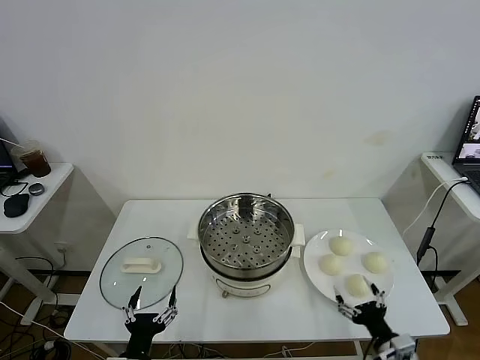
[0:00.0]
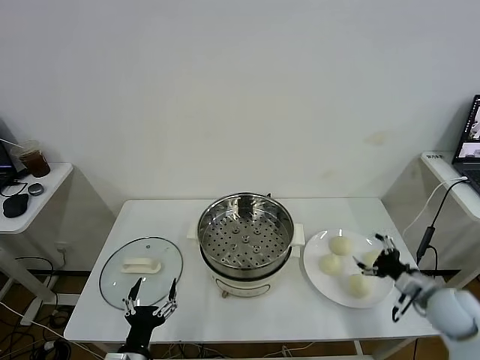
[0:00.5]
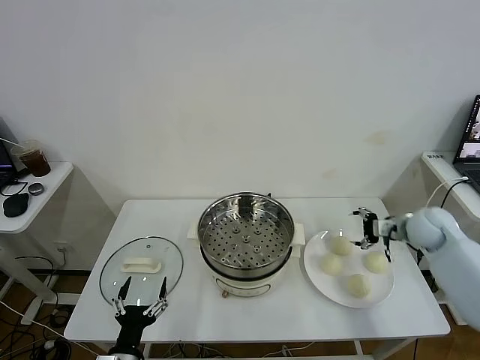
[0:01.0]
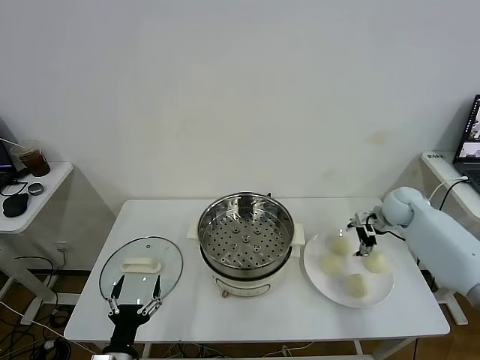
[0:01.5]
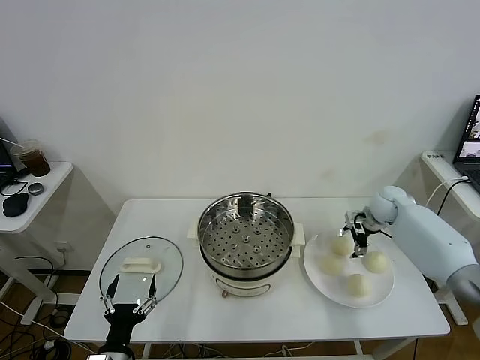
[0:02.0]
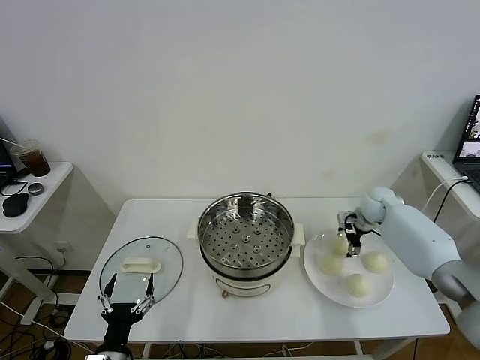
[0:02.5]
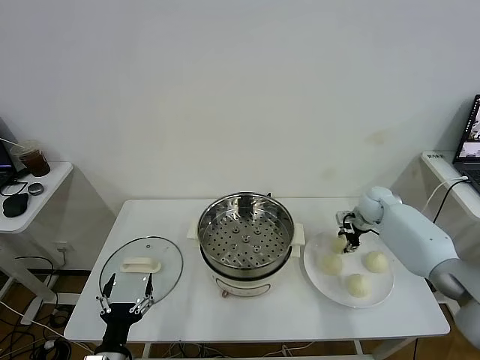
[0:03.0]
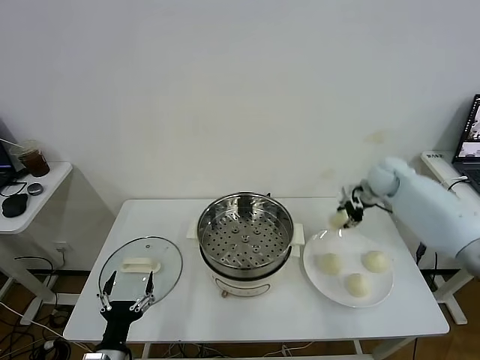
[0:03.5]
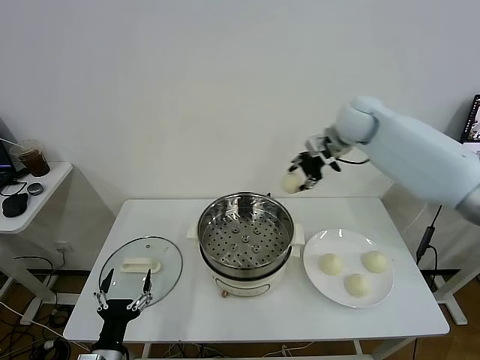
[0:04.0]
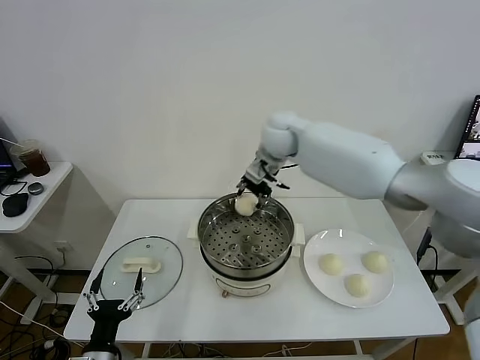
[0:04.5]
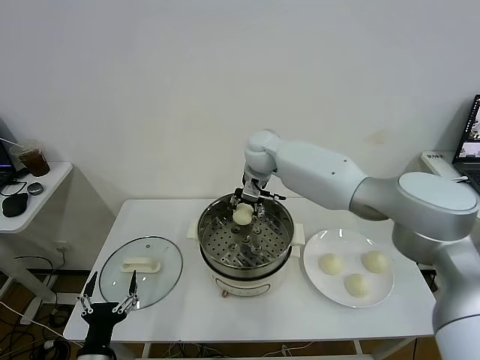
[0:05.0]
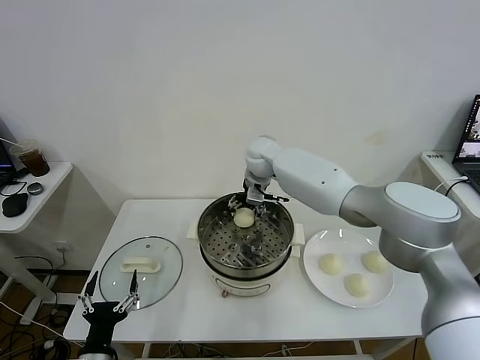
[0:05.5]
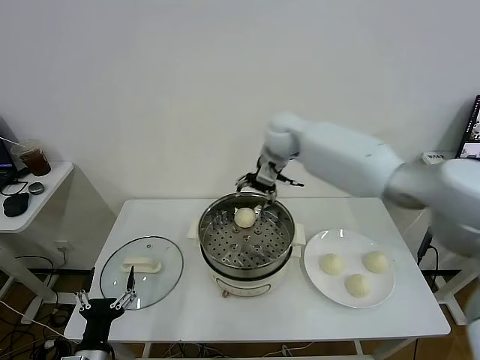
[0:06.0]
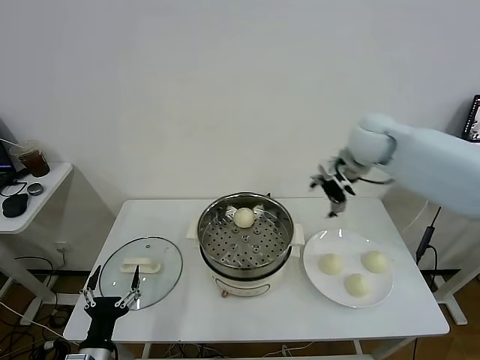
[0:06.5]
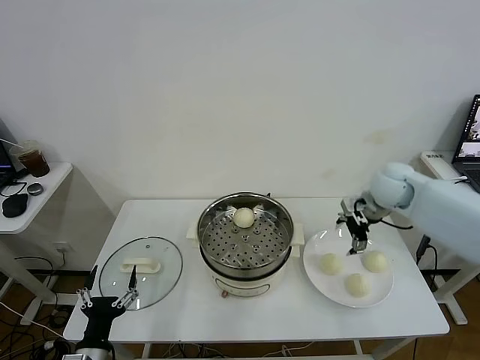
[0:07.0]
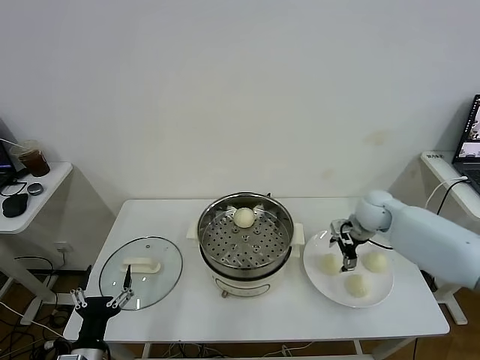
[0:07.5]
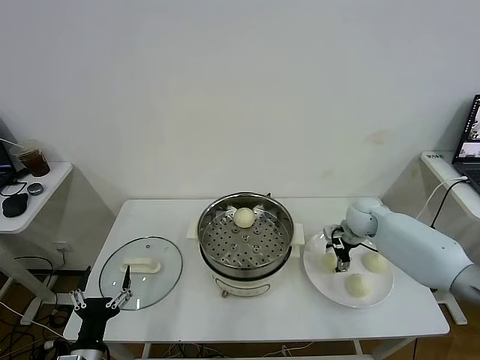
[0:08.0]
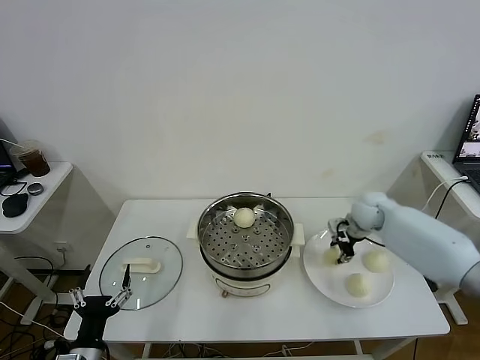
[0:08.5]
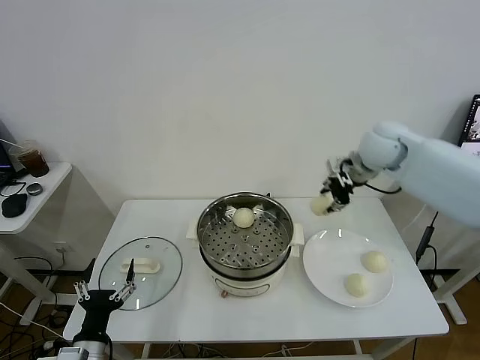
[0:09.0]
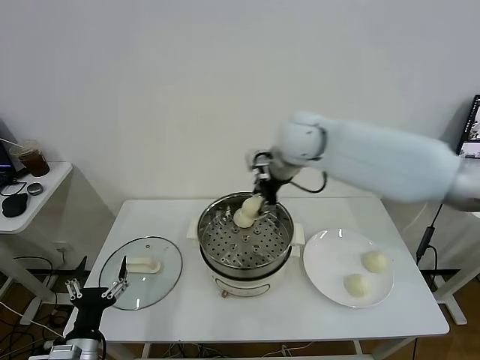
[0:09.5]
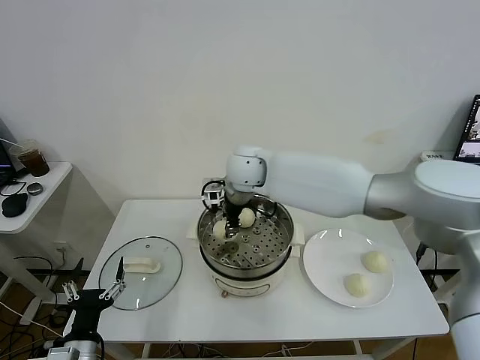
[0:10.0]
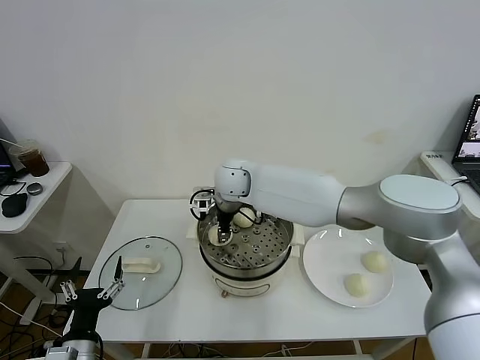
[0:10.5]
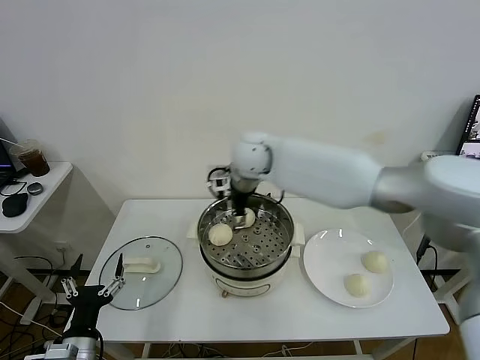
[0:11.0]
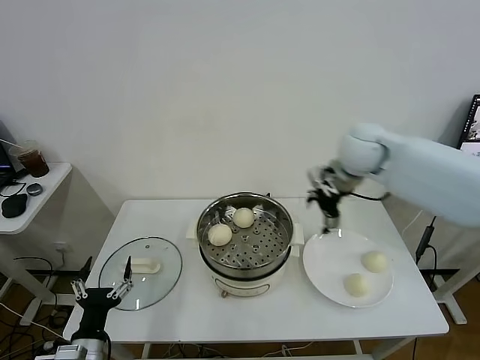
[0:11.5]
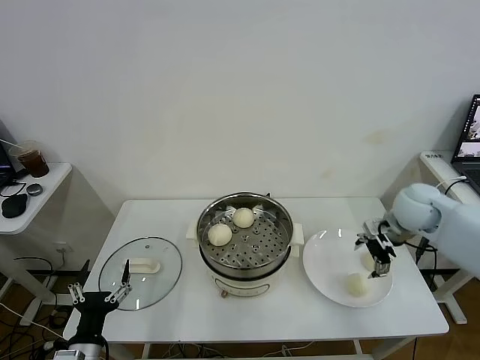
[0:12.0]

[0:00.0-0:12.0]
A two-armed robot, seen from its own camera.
Task of the whole recording: take steamed baozi put them in steamer.
Step, 0:00.0 to 0:02.5: Grasp the baozi in the plate with right gripper.
Step, 0:03.0 to 0:05.5: Place the baozi on the steamer with right gripper.
Step, 0:06.0 to 0:08.0: Grasp the baozi in the plate with right gripper.
Step, 0:08.5 to 0:10.5: Place the baozi on the steamer with right gripper.
0:02.0 to 0:04.0: The right gripper heads upward and to the left, covering about 30 cm, and closes its fingers.
0:04.0 to 0:06.0: The right gripper travels to the left by some 5 cm, and opens up.
0:06.0 to 0:08.0: The right gripper is displaced downward and to the right by roughly 30 cm, and closes up.
0:08.0 to 0:10.0: The right gripper travels to the left and upward by approximately 35 cm.
0:10.0 to 0:12.0: The right gripper moves to the right, roughly 40 cm, and opens.

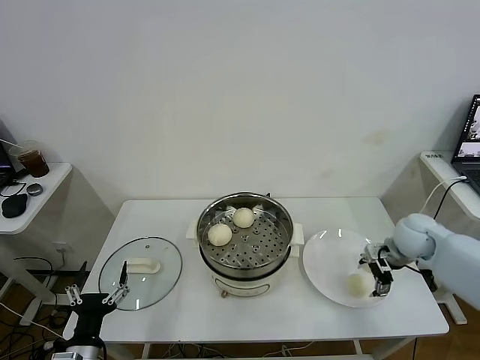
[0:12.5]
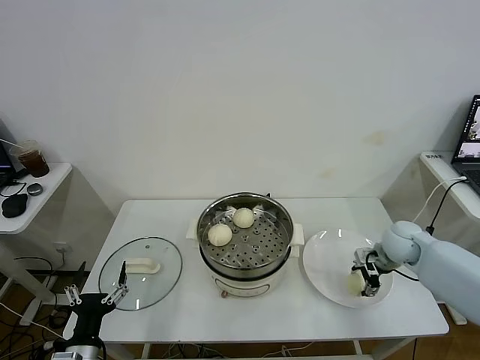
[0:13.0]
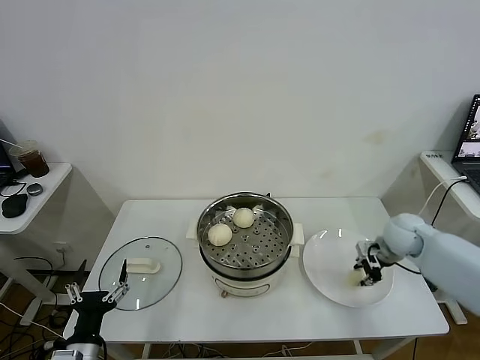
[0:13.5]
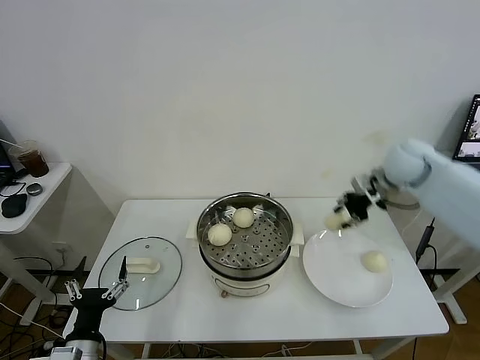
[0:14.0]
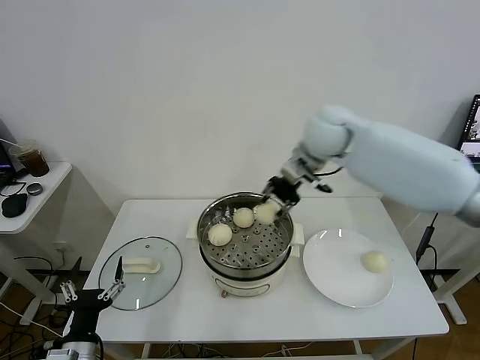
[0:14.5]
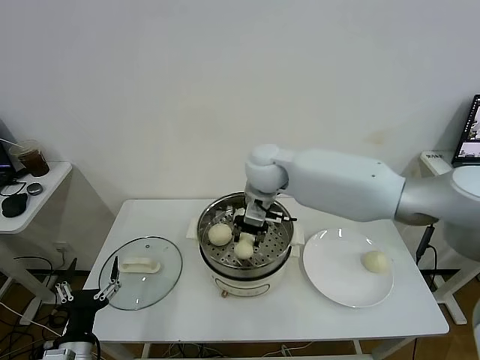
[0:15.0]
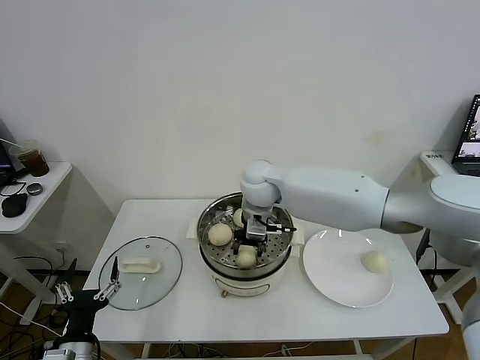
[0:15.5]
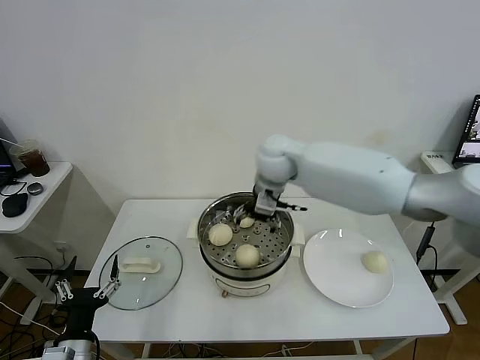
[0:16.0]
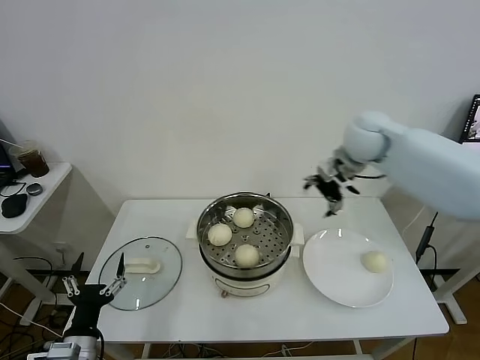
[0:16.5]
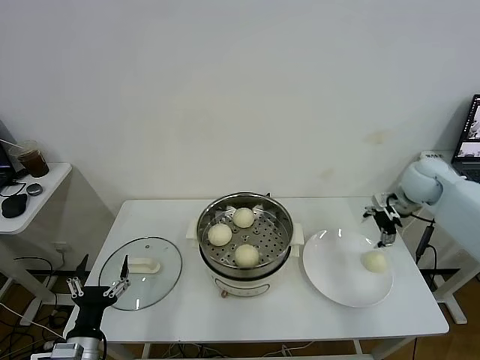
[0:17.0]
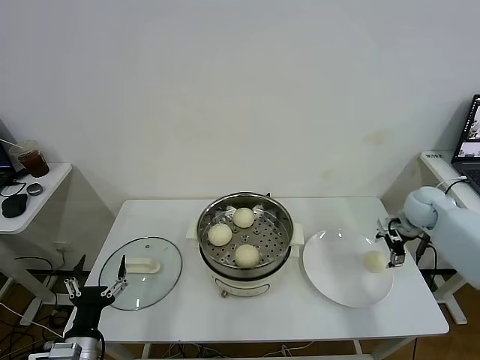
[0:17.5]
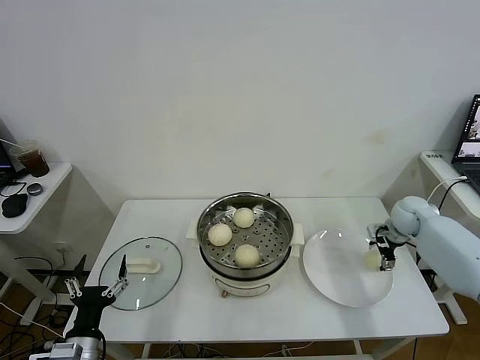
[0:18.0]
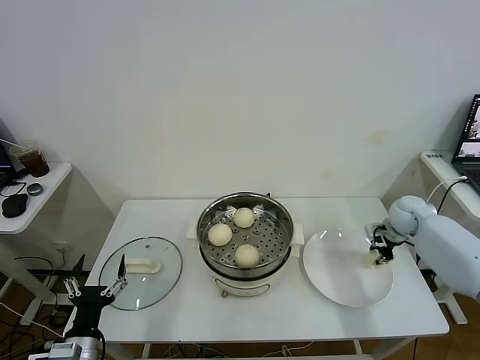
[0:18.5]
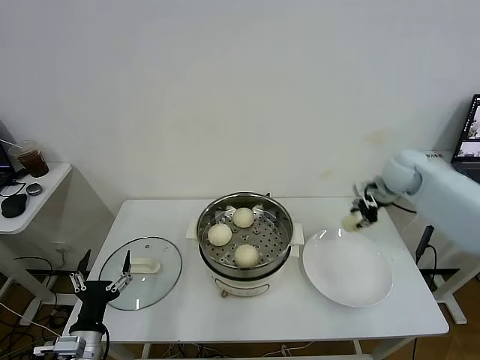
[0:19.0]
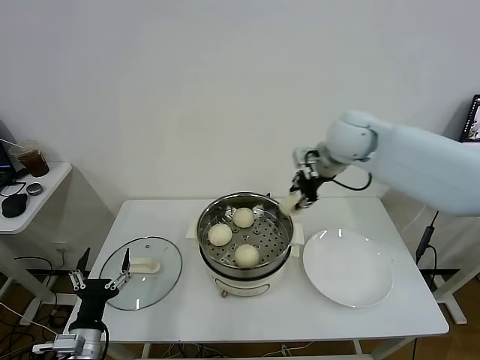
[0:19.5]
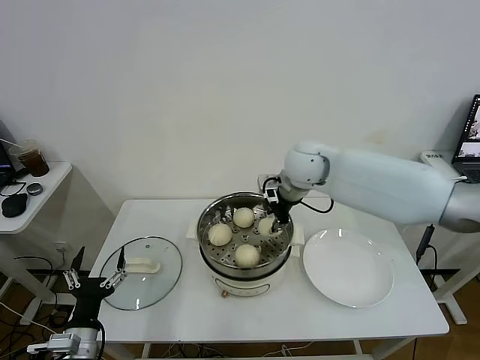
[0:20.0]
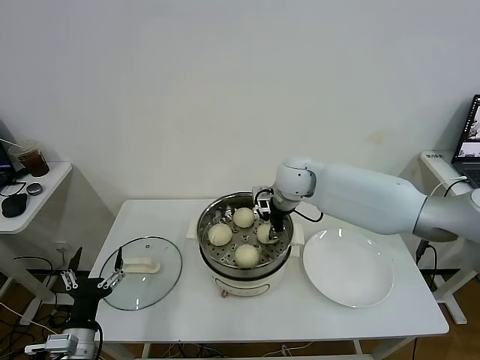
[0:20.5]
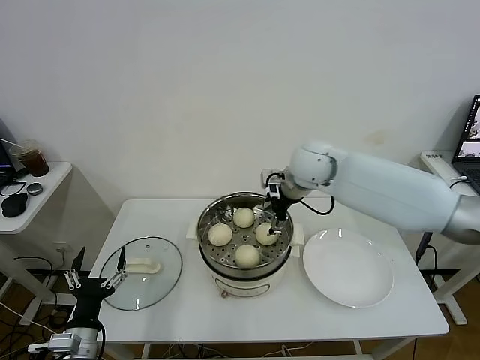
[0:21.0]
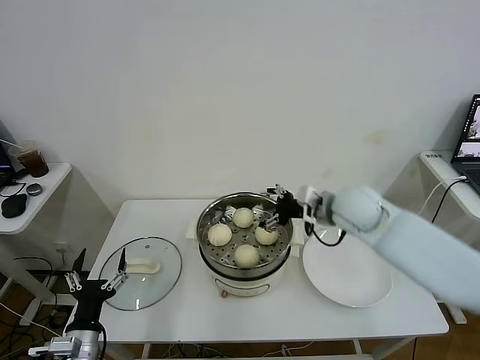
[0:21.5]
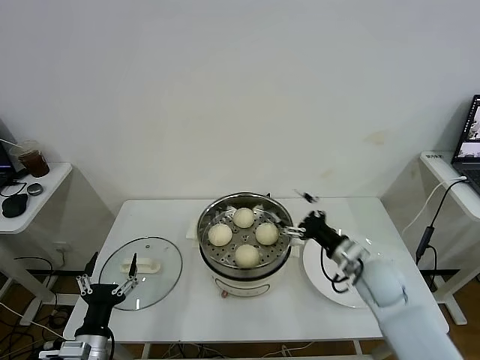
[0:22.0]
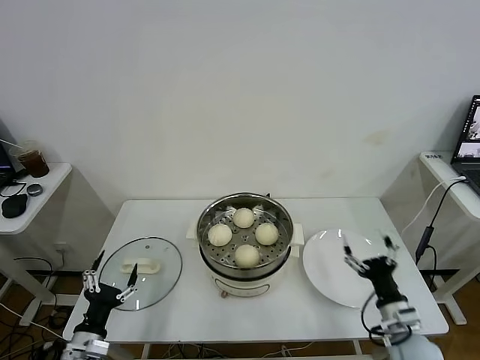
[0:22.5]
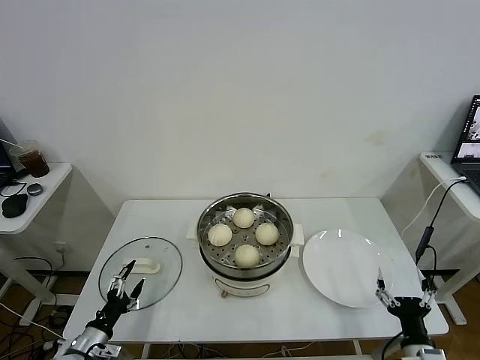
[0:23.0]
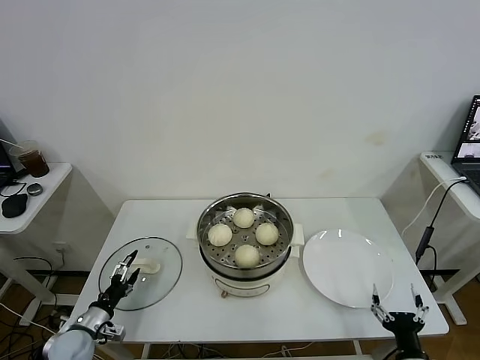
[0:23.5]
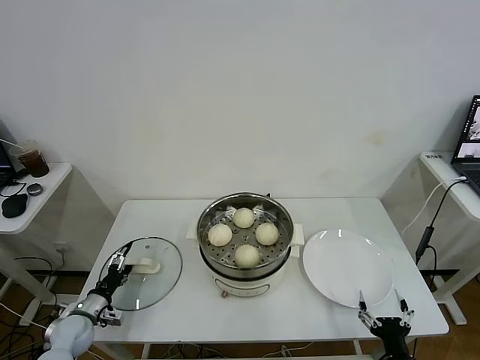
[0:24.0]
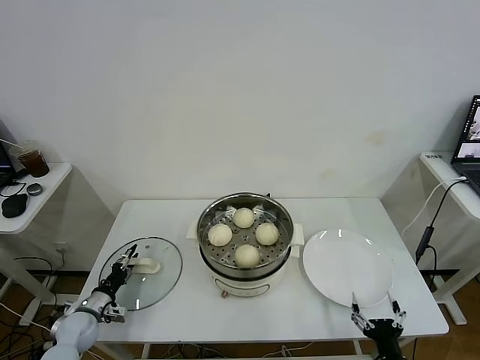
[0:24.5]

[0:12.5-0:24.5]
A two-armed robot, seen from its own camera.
Task of the whole recording: take steamed baozi put them in steamer.
Step, 0:13.5 to 0:15.5: Place the baozi on the steamer with right gripper.
Step, 0:16.0 to 0:18.0: Grasp the baozi in the plate with right gripper.
Step, 0:18.5 to 0:20.5: Place the baozi on the steamer with right gripper.
0:12.5 to 0:14.5: The right gripper travels to the left and upward by approximately 35 cm, and closes its fingers.
0:14.5 to 0:16.5: The right gripper goes some 15 cm to the right, and opens.
0:16.5 to 0:18.5: The right gripper shifts about 25 cm downward and to the right, and closes its fingers.
0:18.5 to 0:20.5: The right gripper shifts roughly 30 cm to the left.
0:20.5 to 0:22.5: The right gripper goes about 40 cm backward, to the right and downward, and opens.
0:22.5 to 0:24.5: The right gripper heads backward and downward, covering about 15 cm. Meanwhile the left gripper goes approximately 20 cm forward, downward and to the left, and closes its fingers.

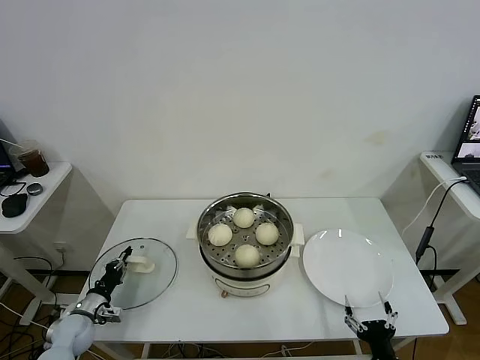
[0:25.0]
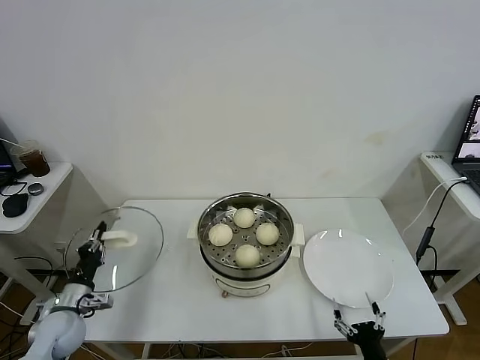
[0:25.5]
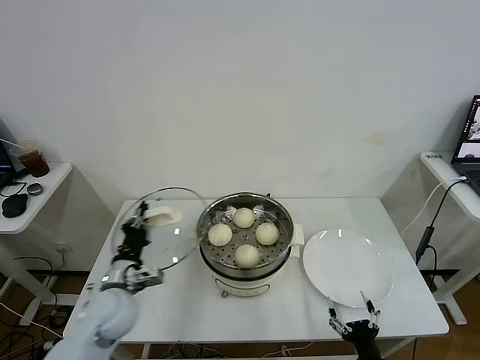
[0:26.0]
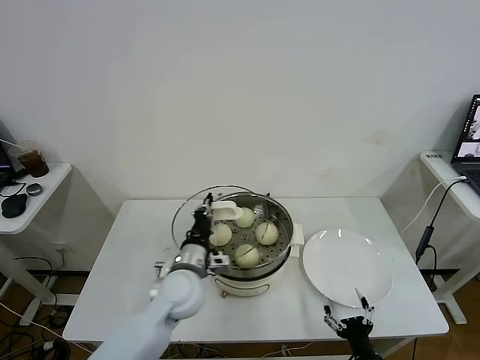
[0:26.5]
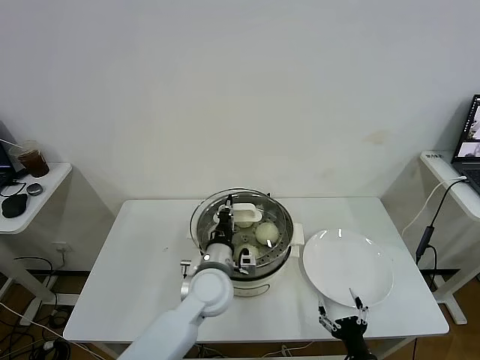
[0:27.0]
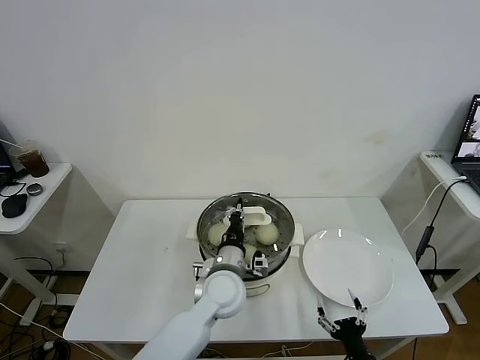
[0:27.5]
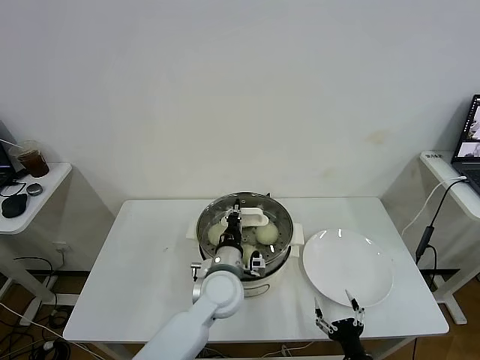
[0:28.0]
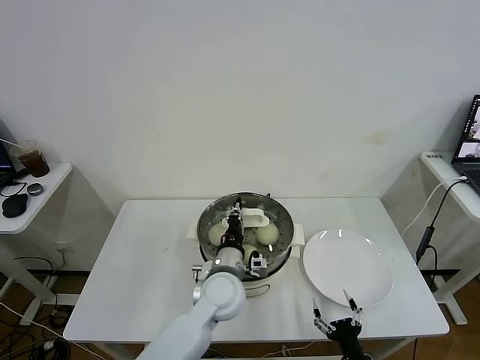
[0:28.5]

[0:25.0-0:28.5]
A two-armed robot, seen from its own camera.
Task of the whole recording: take steamed baozi put them in steamer.
0:25.0 to 0:27.0: The left gripper travels to the right and upward by about 40 cm.
0:27.0 to 0:28.5: There are only small adjustments of the grippers.
